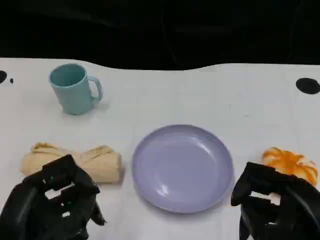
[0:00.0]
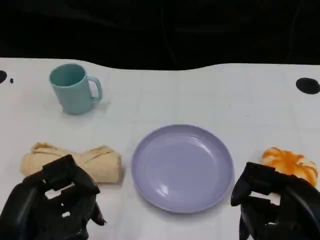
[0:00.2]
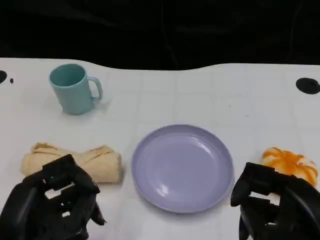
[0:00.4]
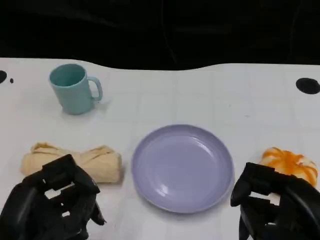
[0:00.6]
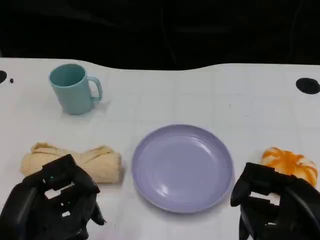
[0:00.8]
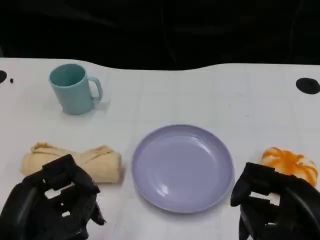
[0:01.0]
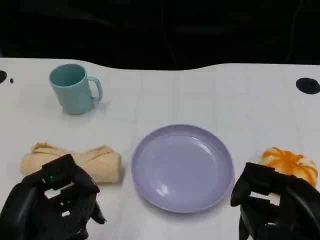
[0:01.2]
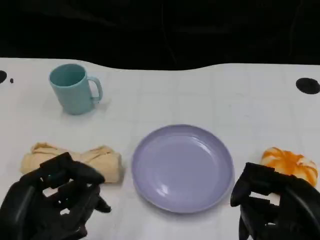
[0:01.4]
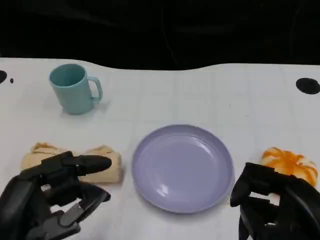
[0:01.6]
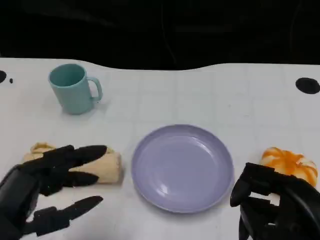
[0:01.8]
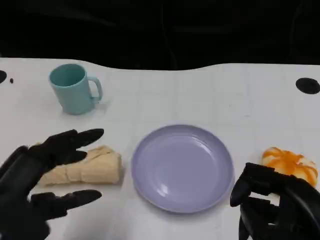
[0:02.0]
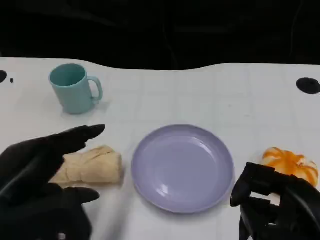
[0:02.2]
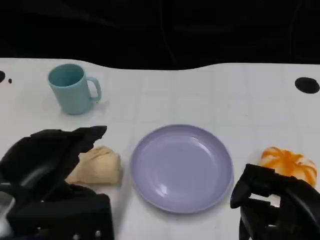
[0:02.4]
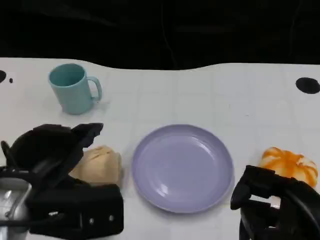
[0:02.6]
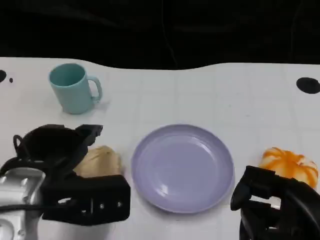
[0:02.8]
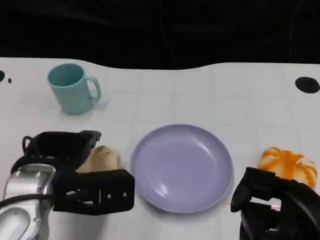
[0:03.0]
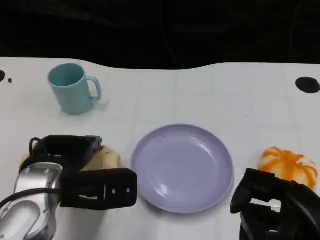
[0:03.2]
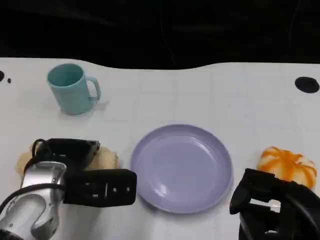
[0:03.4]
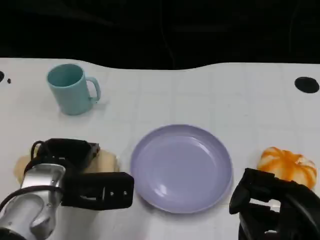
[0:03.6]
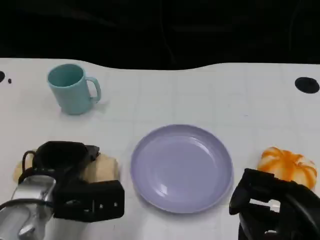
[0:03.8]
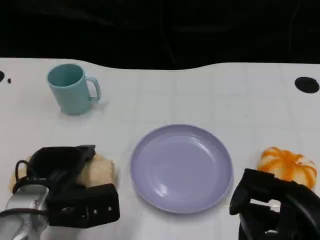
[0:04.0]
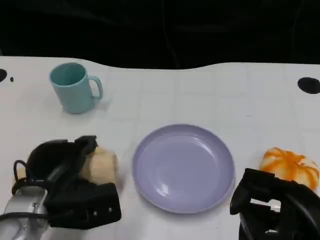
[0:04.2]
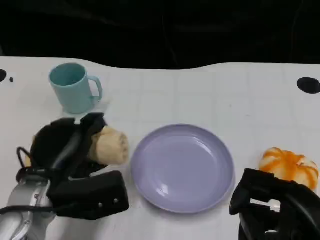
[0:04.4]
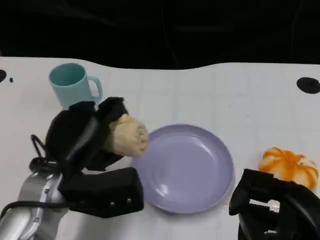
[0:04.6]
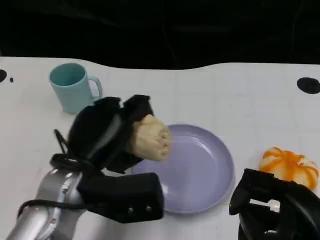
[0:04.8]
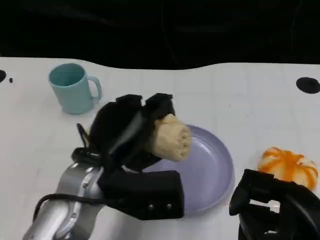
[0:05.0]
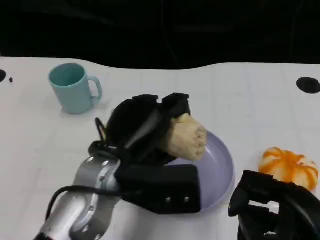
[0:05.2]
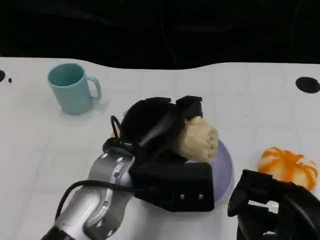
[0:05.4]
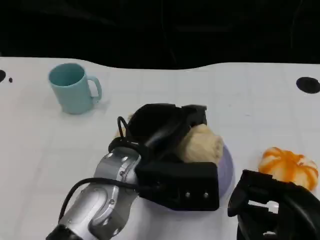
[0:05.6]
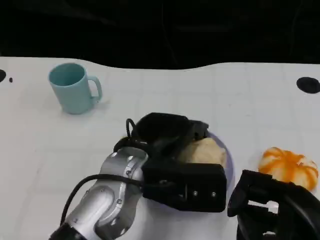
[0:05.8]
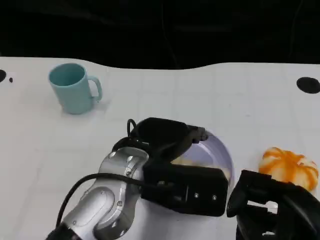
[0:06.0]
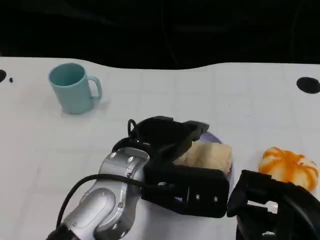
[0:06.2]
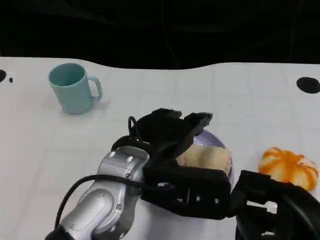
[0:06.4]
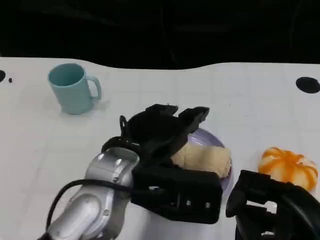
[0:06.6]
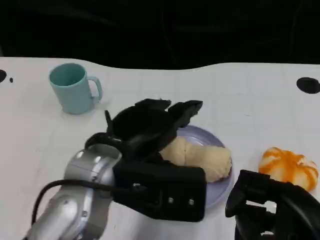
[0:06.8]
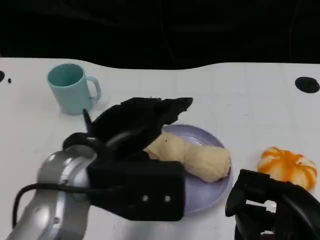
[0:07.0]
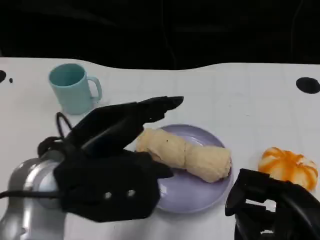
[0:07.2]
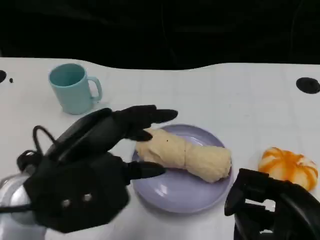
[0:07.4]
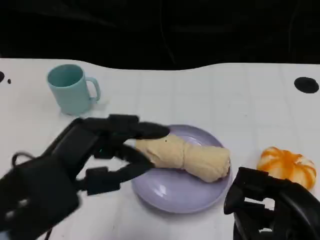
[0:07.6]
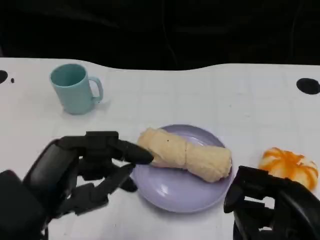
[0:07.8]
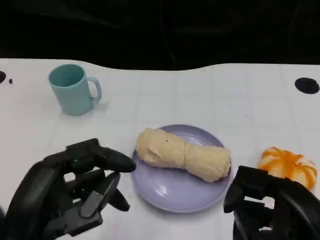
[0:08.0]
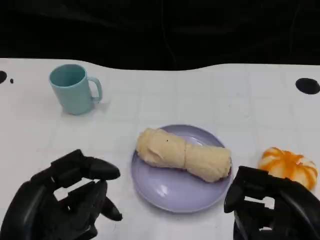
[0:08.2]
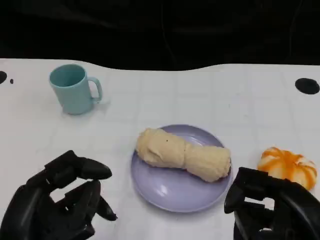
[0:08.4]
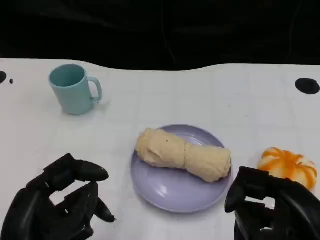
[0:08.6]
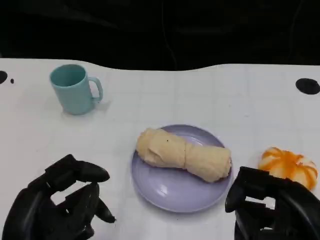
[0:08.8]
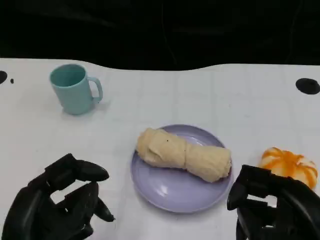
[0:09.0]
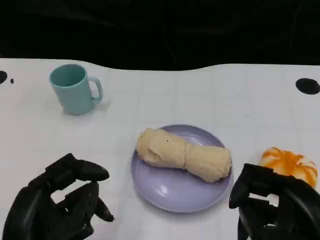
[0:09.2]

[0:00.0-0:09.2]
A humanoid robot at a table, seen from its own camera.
Task of the whole recording: Grasp the towel on the left side of the plate with the left hand and place it into the plate.
0:00.0 to 0:01.6: The hands make only small movements.
0:01.6 to 0:03.0: The left hand moves forward, about 10 cm.
0:04.6 to 0:06.2: The left hand goes roughly 10 cm to the right.
0:06.2 to 0:07.6: The left hand travels to the left and backward by some 15 cm.
0:07.6 to 0:09.2: The left hand heads downward, covering roughly 5 cm.
